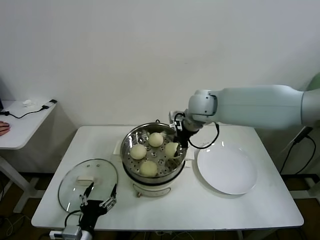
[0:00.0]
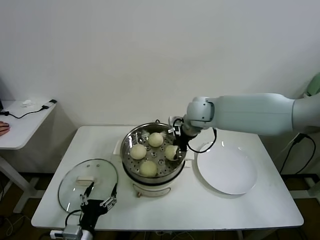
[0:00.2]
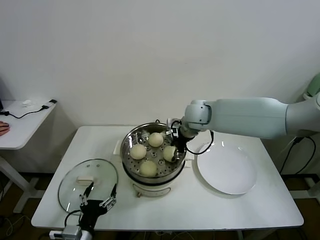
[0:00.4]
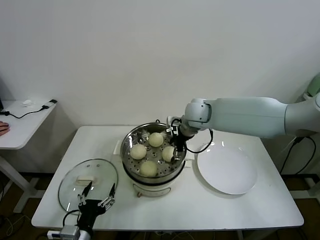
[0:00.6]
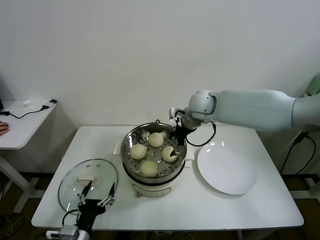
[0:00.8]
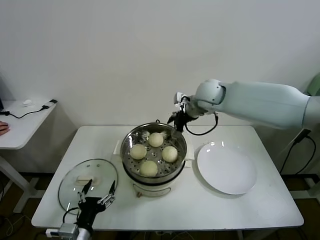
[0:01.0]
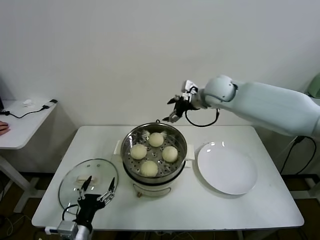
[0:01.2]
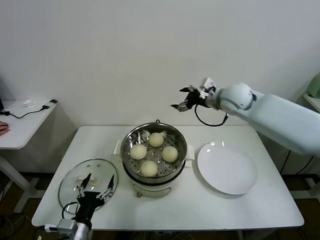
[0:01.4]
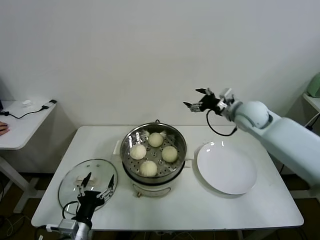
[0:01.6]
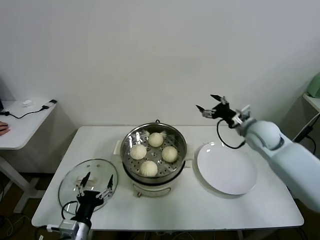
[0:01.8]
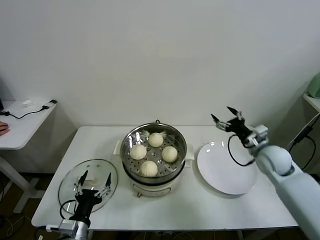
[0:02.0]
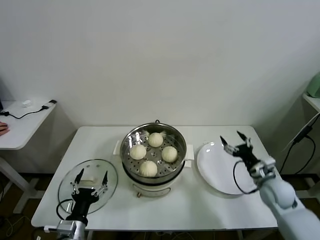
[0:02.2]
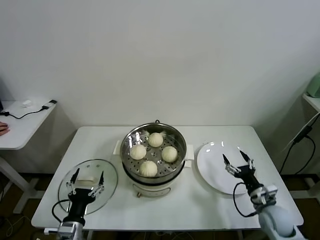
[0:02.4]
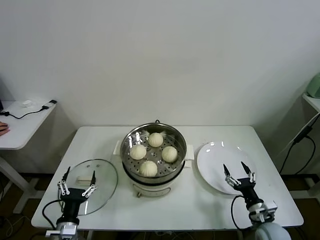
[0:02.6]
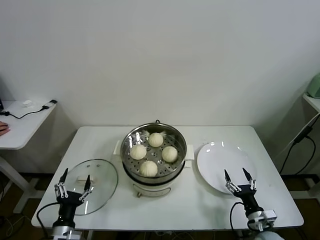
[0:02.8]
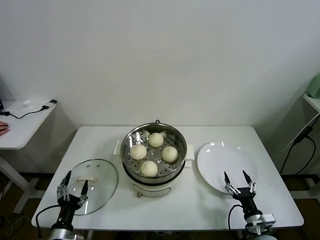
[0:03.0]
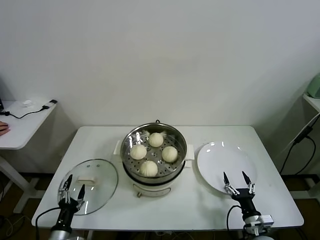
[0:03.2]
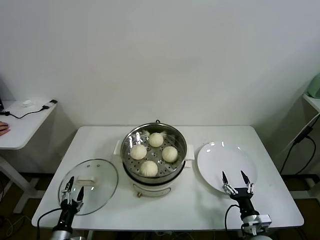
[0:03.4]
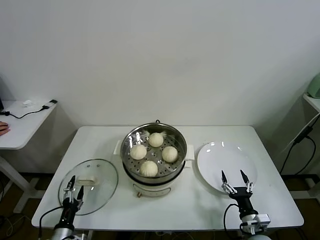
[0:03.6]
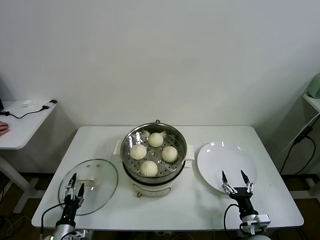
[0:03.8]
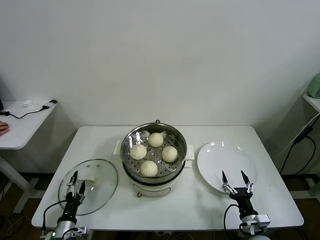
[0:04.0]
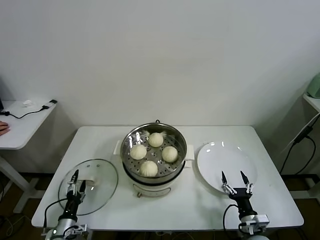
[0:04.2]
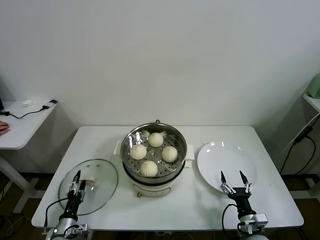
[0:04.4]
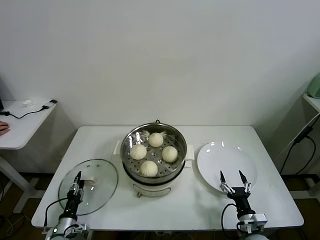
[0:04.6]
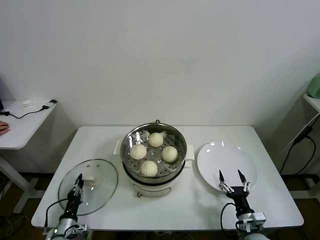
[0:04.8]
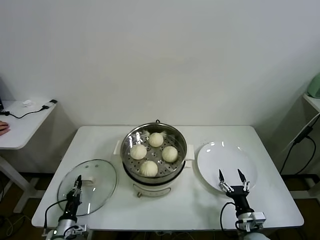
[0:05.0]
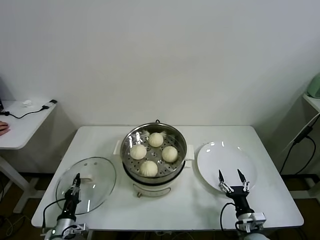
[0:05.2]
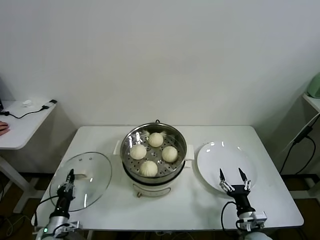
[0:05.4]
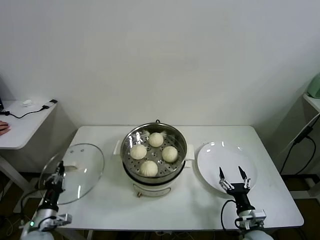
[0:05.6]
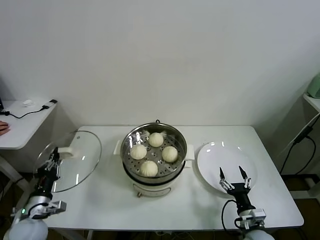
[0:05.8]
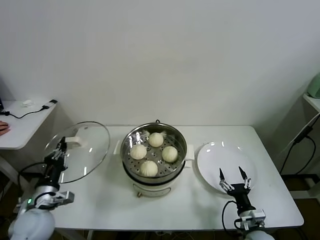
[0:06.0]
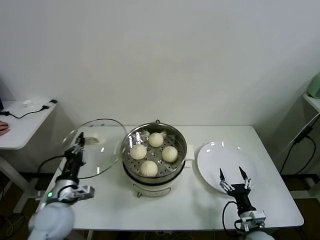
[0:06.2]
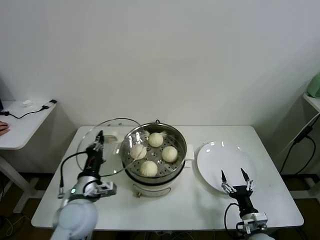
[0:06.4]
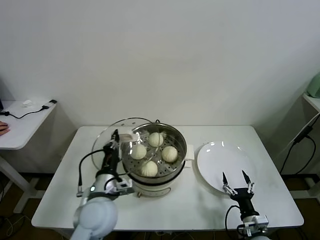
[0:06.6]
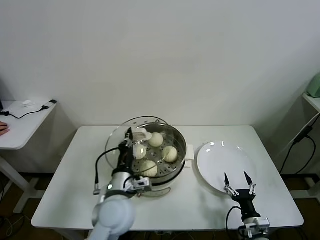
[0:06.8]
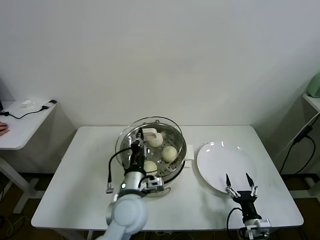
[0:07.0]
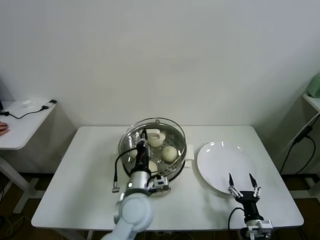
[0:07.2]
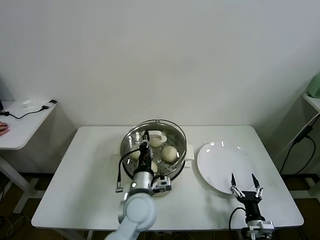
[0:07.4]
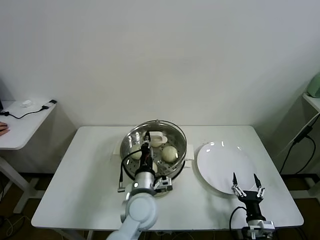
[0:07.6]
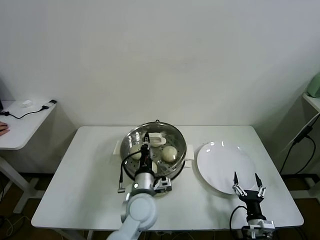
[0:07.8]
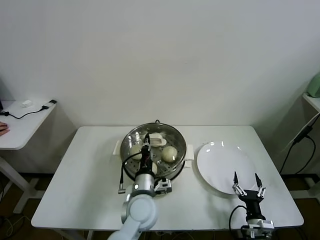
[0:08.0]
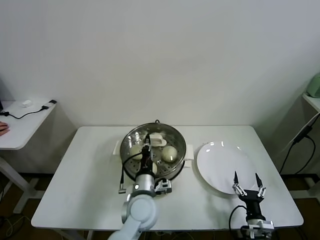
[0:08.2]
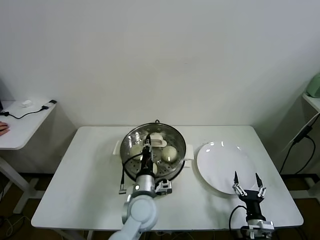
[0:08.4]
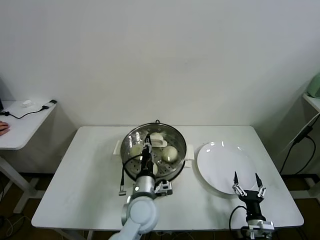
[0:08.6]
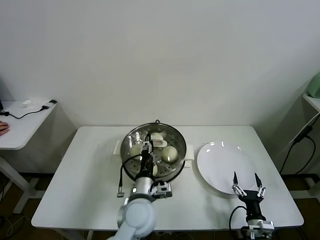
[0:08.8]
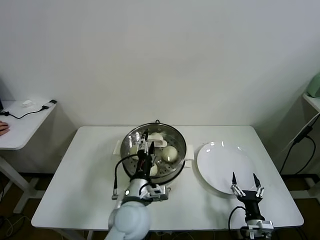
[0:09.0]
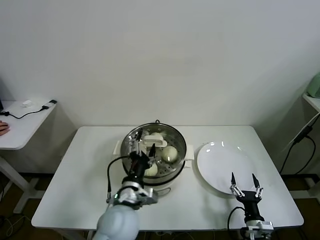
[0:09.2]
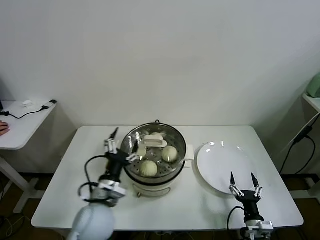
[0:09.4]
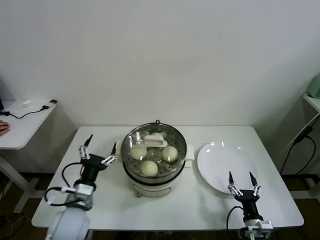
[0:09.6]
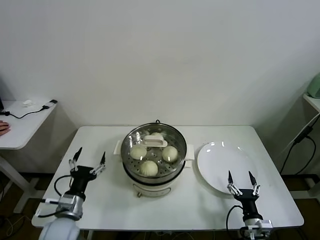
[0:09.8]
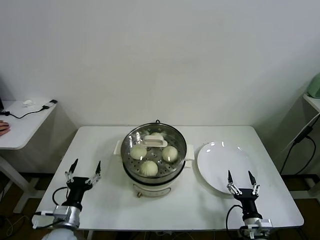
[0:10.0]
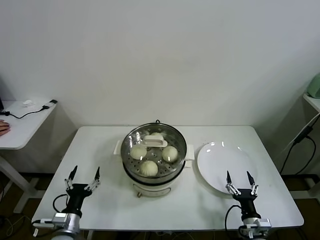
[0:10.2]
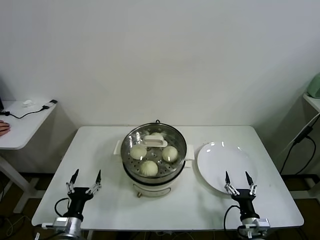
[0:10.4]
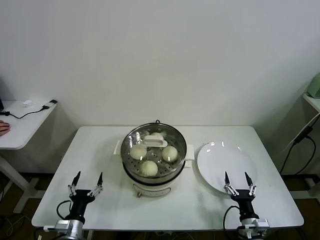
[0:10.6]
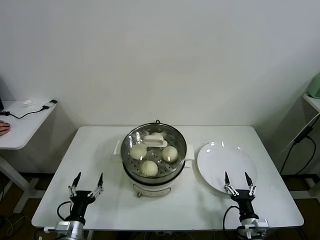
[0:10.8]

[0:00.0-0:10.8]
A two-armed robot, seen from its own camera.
Task of the whole recording: take steamed baozi put them in steamer.
Step, 0:00.8 to 0:04.8: Grasp the pot lid with left gripper.
Step, 0:05.0 to 0:08.6: Place the pot lid on the steamer with left gripper.
0:00.0 to 0:01.6: The right gripper shifts approximately 15 cm to the right, and opens its fingers.
0:01.6 to 0:03.0: The left gripper travels downward and to the left by some 10 cm. The right gripper travels downward and backward by about 40 cm.
0:03.0 to 0:04.6: The left gripper heads downward and forward, covering roughly 10 cm, and closes.
0:04.6 to 0:06.2: The left gripper moves upward, roughly 20 cm, and closes up.
0:06.2 to 0:07.8: The left gripper travels to the right by roughly 25 cm.
0:07.8 to 0:09.2: The left gripper ends up some 5 cm from where it was, and opens up.
0:09.2 to 0:10.8: The left gripper heads to the left and downward, covering some 25 cm.

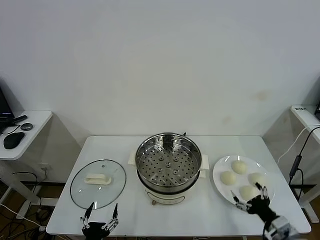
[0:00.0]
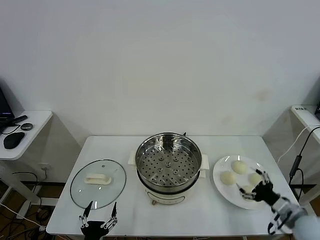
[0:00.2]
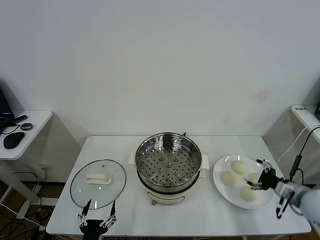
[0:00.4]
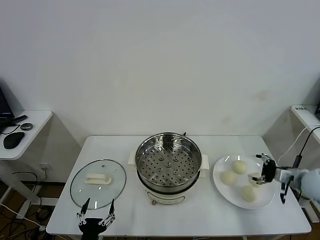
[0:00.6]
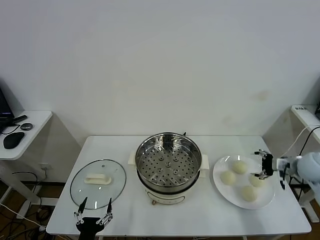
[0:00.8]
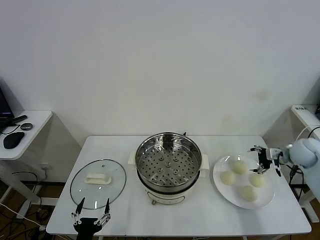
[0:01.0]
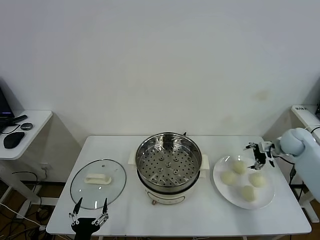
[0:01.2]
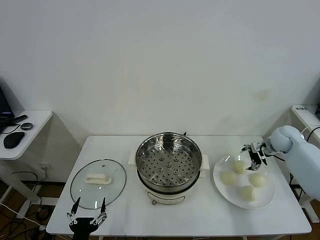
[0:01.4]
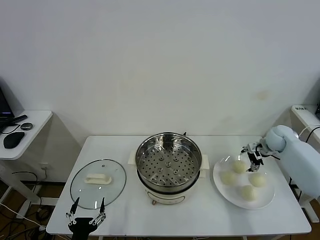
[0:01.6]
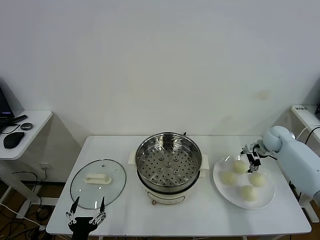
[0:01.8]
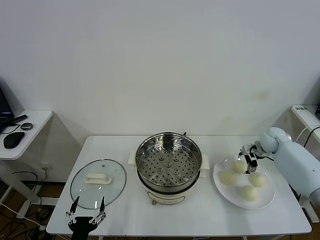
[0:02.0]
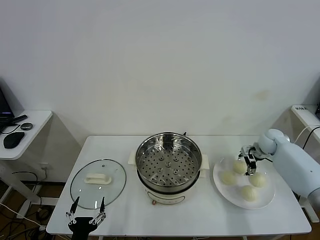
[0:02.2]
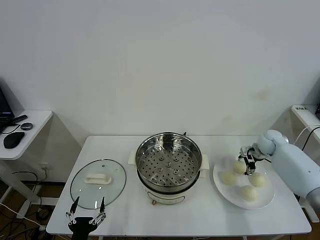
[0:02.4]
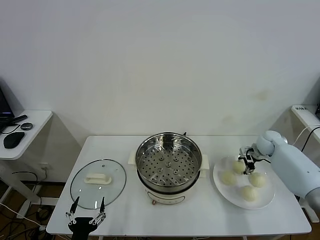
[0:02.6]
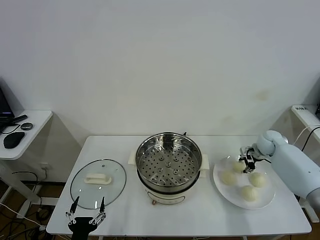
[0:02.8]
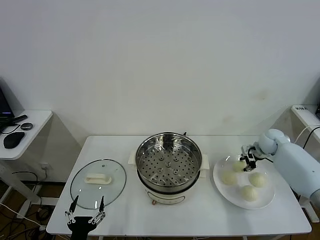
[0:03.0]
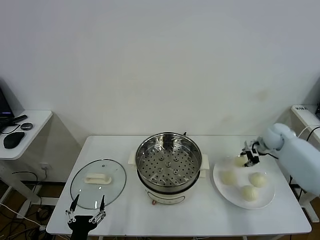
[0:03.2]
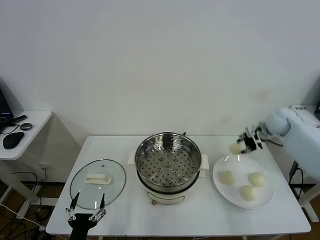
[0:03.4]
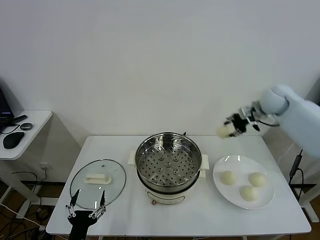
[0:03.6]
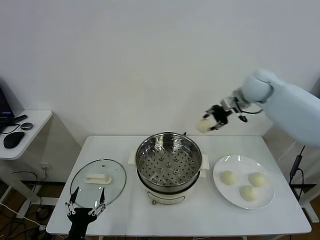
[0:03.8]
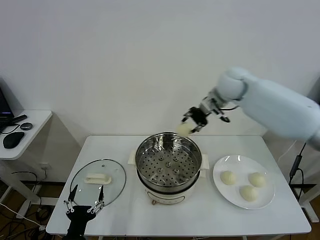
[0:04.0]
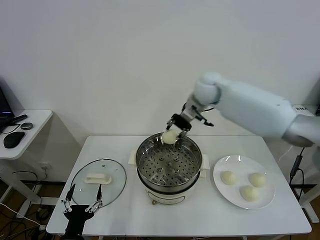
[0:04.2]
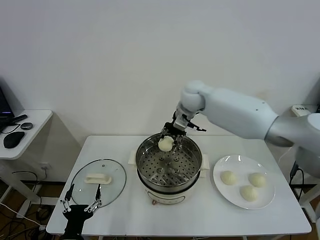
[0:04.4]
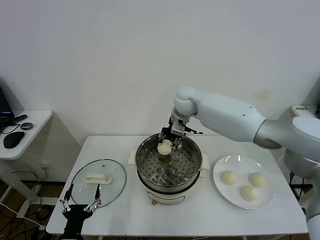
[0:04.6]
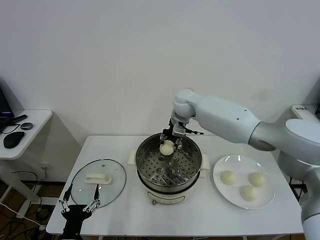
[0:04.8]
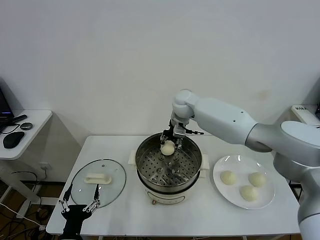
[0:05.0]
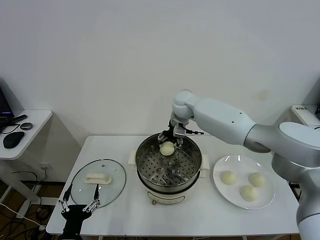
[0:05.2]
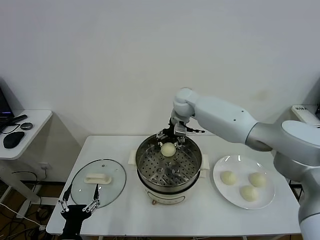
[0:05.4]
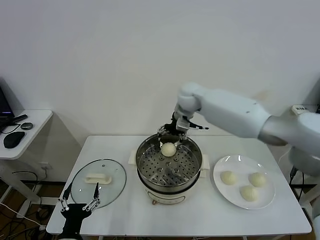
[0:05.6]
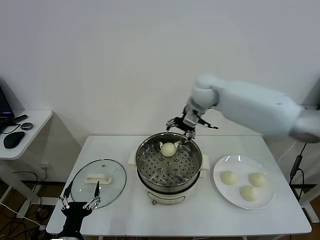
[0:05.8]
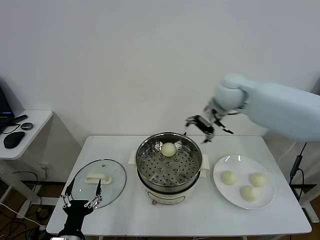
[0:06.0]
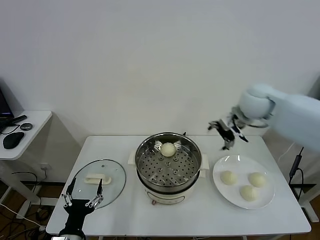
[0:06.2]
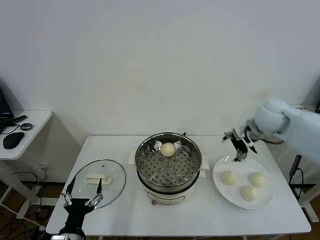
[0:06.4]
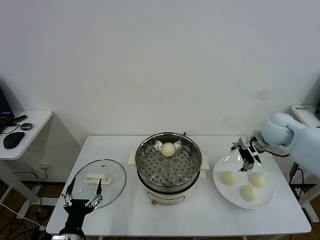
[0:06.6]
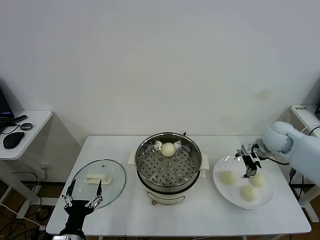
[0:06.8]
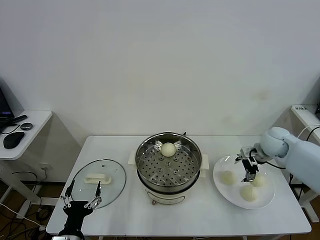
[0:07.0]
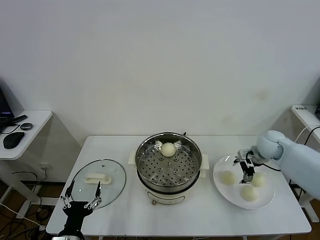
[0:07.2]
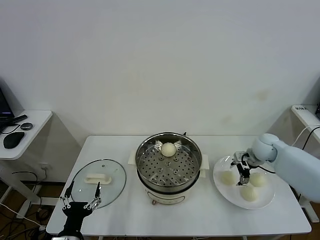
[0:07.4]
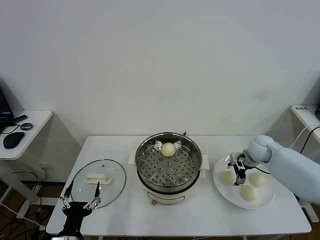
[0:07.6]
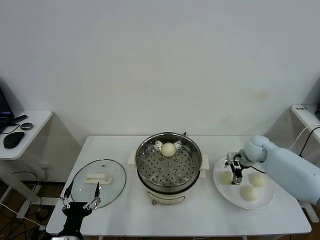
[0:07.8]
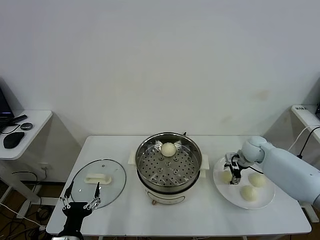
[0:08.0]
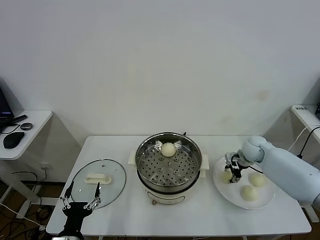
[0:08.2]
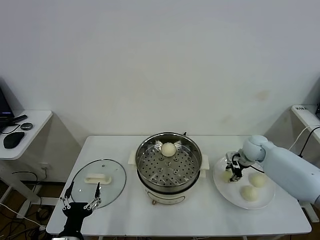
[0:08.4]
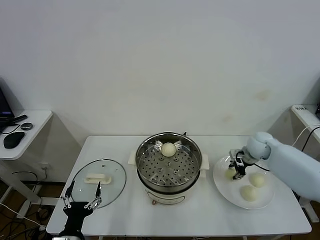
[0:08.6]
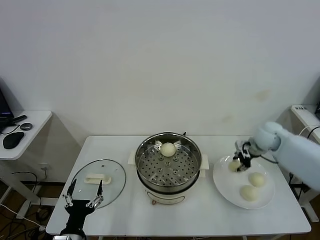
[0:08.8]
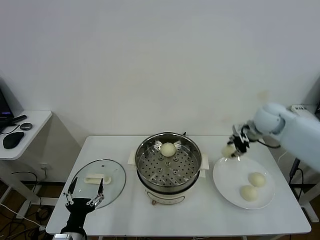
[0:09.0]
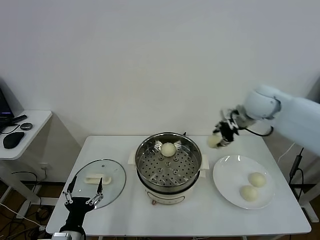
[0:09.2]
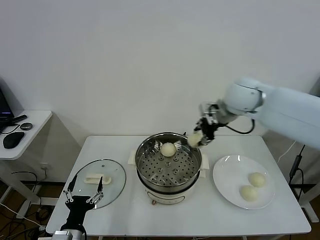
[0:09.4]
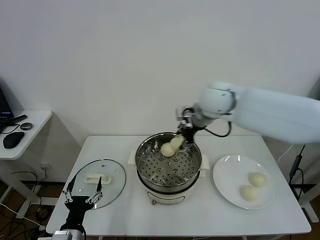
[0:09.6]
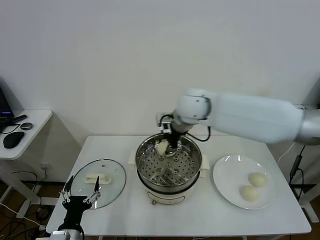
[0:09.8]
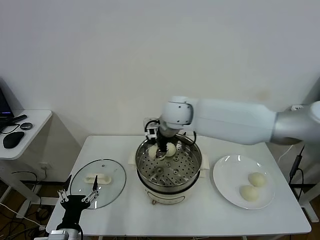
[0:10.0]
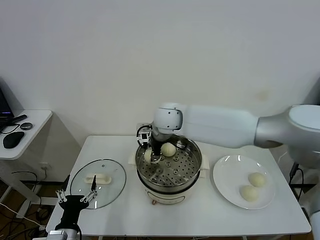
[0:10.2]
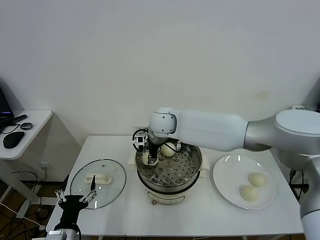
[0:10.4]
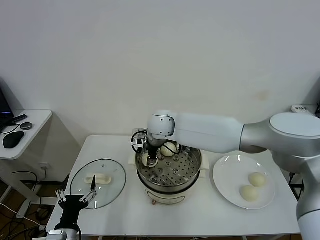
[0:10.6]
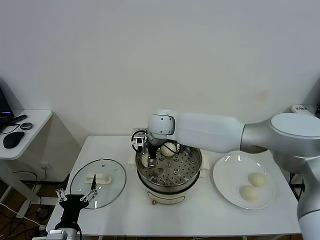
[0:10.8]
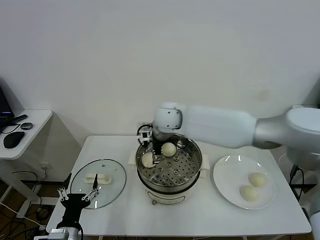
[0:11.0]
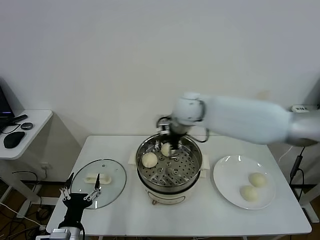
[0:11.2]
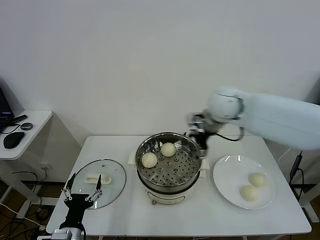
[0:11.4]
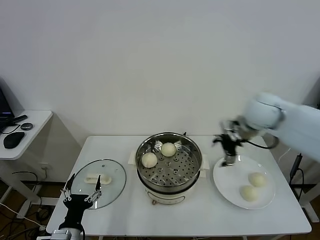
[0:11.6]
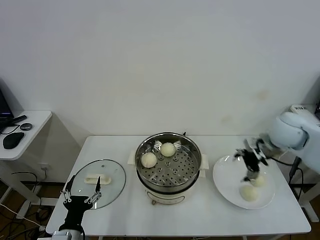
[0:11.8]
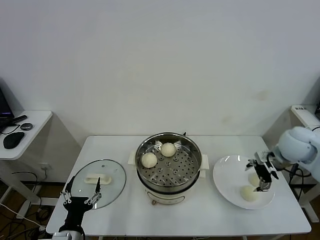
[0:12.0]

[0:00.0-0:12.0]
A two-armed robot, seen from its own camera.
Task of the whole recording: take steamed baozi put them in steamer.
Step, 0:00.0 to 0:02.6: Grasp the baozi in the plate with right gripper.
Step, 0:02.8 to 0:05.4: Place the baozi on the steamer with right gripper.
Step, 0:05.6 to 0:08.4: Grasp the baozi in the plate with right gripper.
Step, 0:08.6 to 0:10.8: Place the baozi on the steamer with right gripper.
0:01.6 to 0:03.0: The right gripper closes its fingers.
0:03.0 to 0:04.4: The right gripper is displaced to the left and upward by some 40 cm.
0:04.4 to 0:06.0: The right gripper goes roughly 10 cm to the right and backward, and opens.
0:06.0 to 0:07.6: The right gripper travels downward and to the right by about 30 cm.
0:07.6 to 0:09.0: The right gripper is displaced upward by about 15 cm, and closes its fingers.
0:09.0 to 0:10.4: The right gripper travels to the left by some 35 cm.
0:10.4 to 0:12.0: The right gripper shifts some 40 cm to the right, and opens up.
